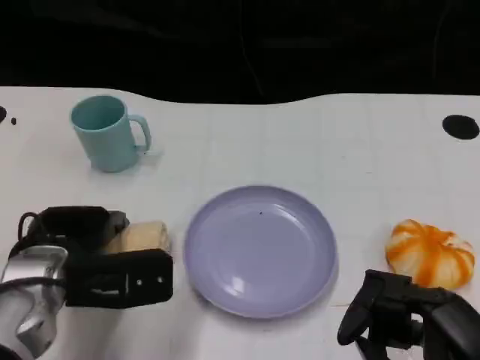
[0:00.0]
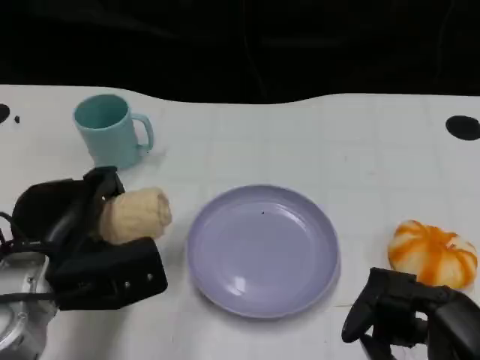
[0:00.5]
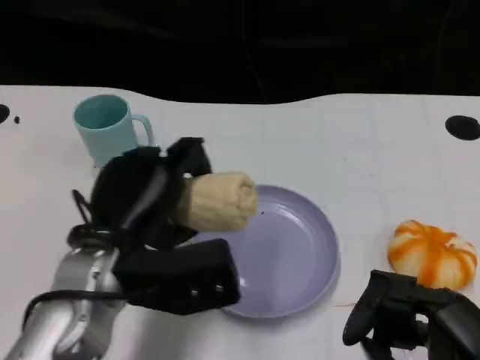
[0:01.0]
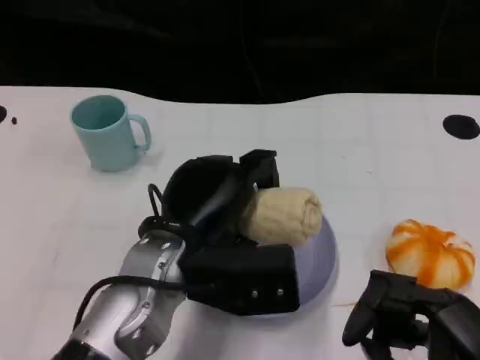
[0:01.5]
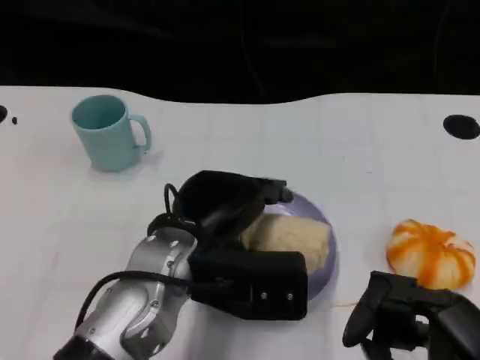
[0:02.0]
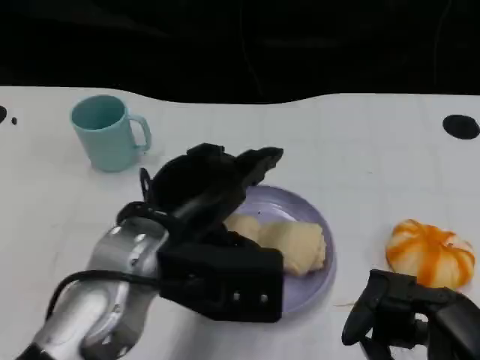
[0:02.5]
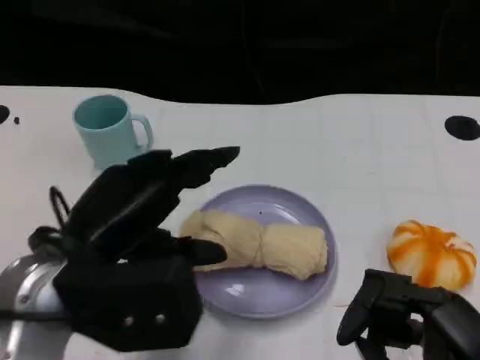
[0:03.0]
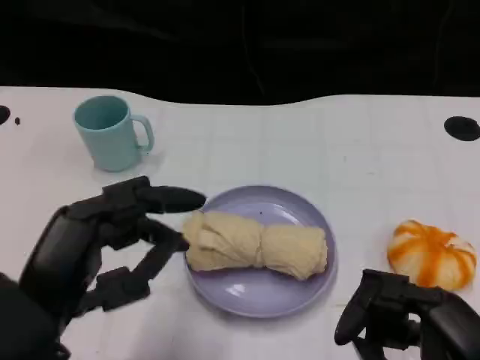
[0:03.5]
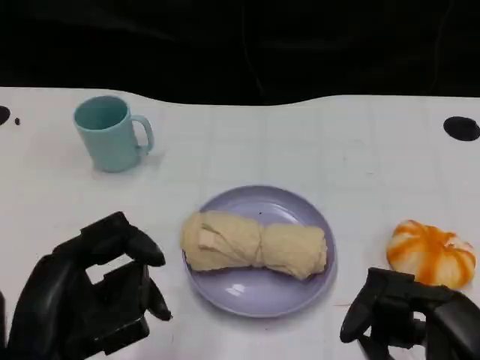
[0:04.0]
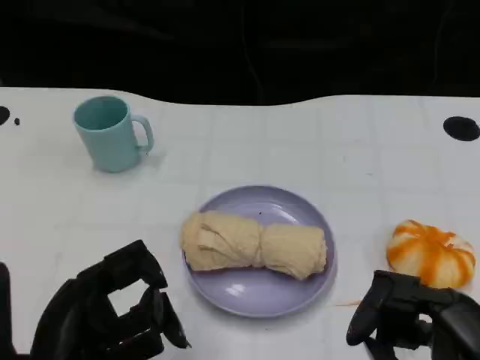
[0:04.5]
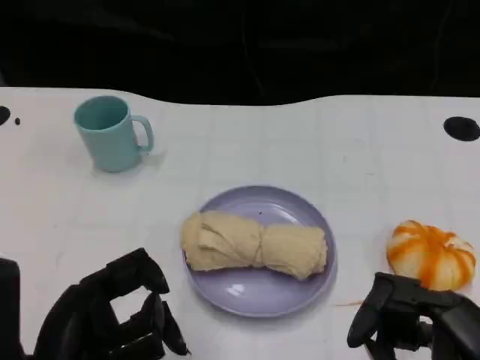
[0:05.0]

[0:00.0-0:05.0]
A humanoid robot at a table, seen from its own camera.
Task of the whole recording: Grasp the towel on the left side of the plate with the left hand and place it into the plate.
0.0 to 2.5 s: The left hand shifts some 10 cm to the right and upward.
2.5 to 5.0 s: The left hand travels backward and to the left by approximately 15 cm.

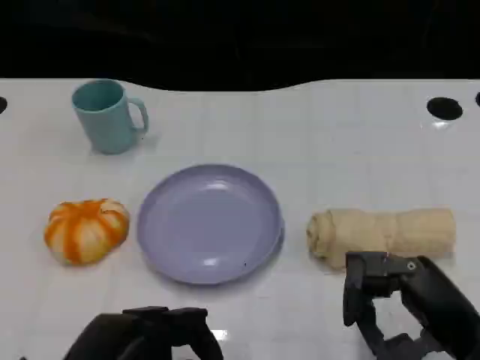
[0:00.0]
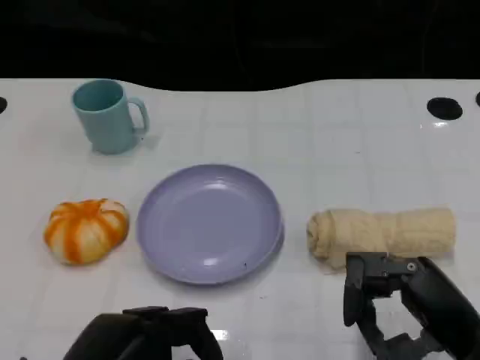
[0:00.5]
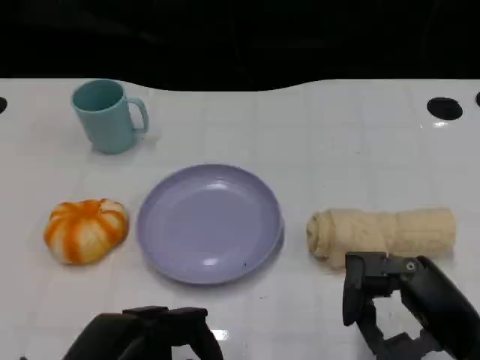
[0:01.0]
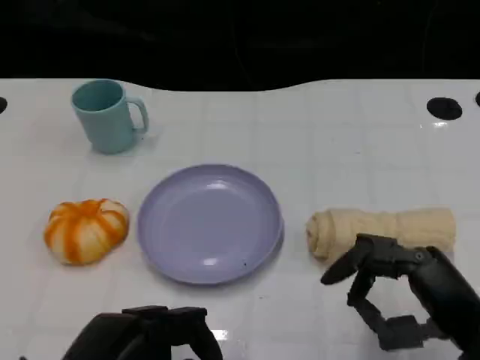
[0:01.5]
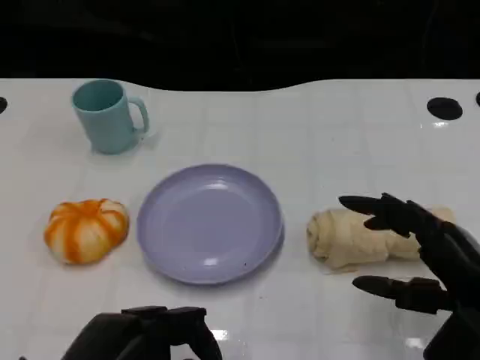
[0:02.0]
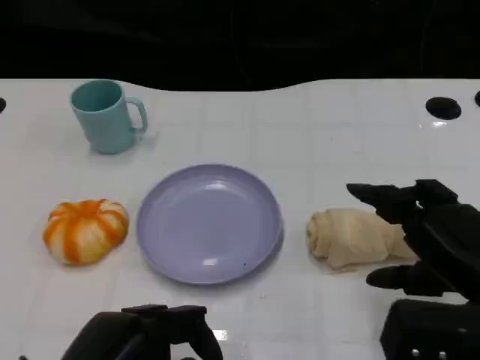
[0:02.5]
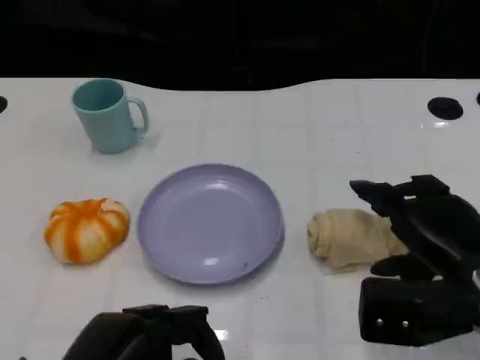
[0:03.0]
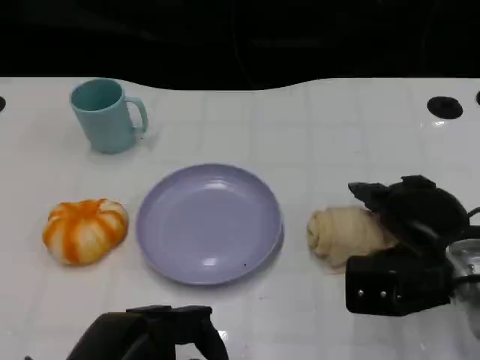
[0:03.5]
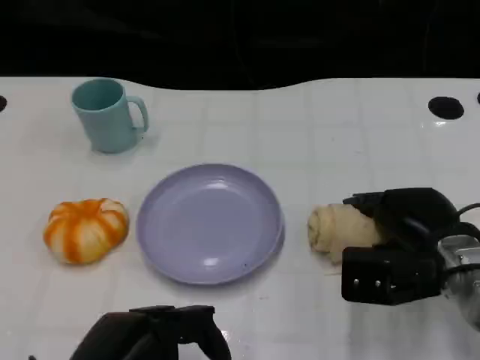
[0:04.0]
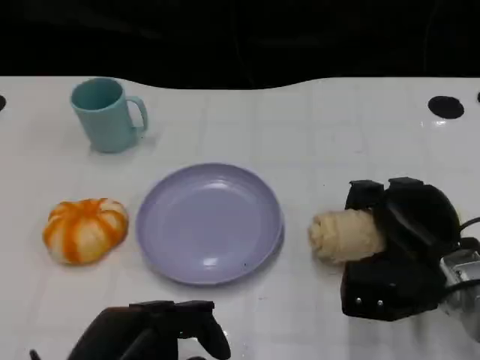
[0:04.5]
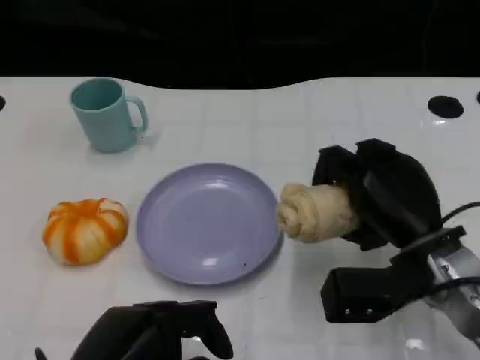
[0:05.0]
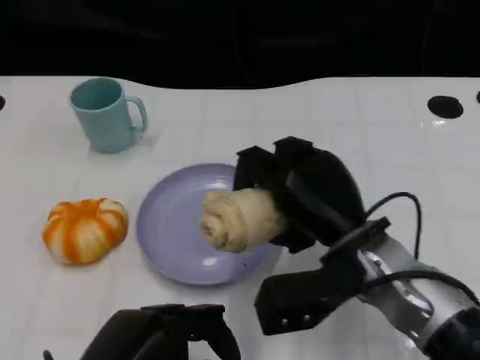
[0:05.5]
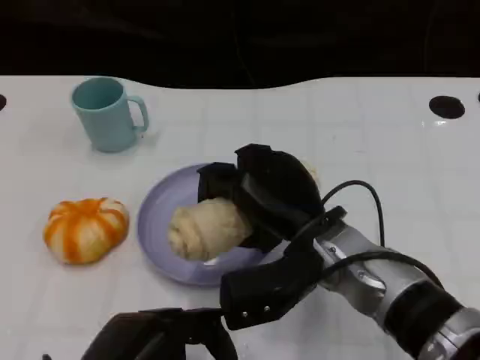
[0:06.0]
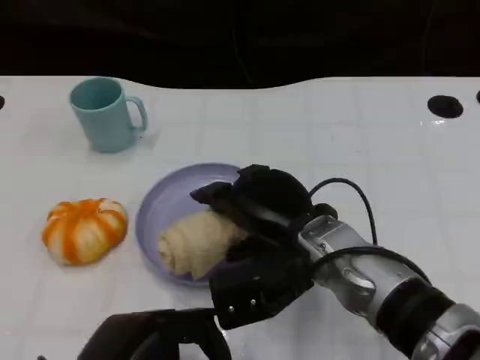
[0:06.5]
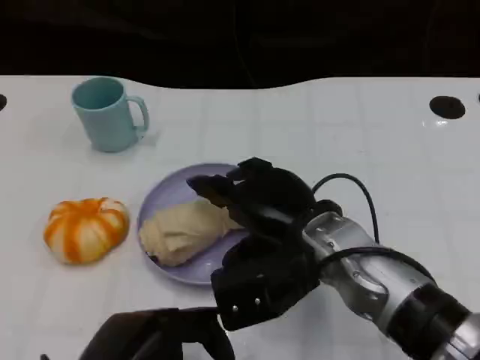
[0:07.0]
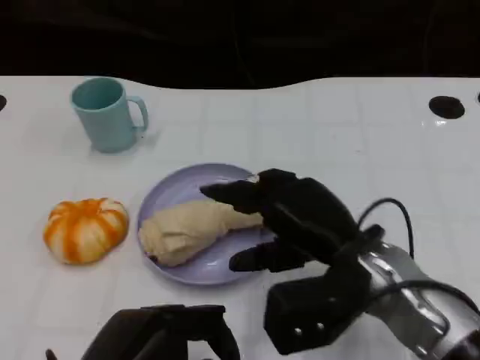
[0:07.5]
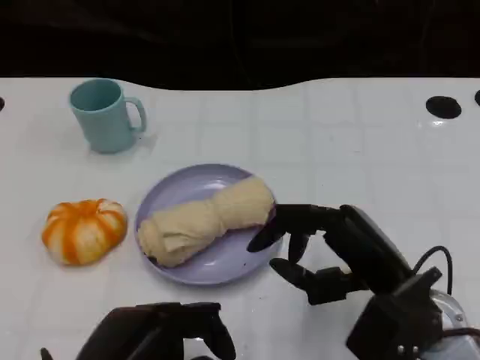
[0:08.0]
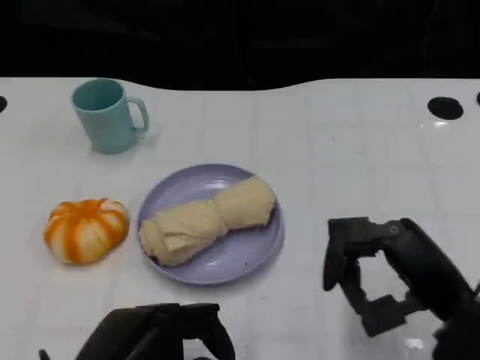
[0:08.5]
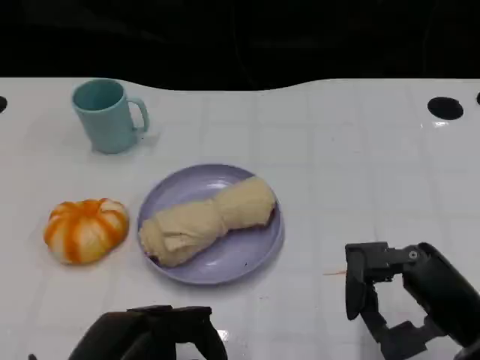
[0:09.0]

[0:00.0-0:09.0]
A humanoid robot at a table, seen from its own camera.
Task of the whole recording: Grasp the towel on the left side of the plate with the left hand and place it into the plate.
2.0 to 4.5 s: The right hand shifts about 10 cm forward and downward.
4.5 to 7.0 s: The right hand moves to the left and upward, some 15 cm.
7.0 to 9.0 s: The right hand is displaced to the right and backward by approximately 20 cm.

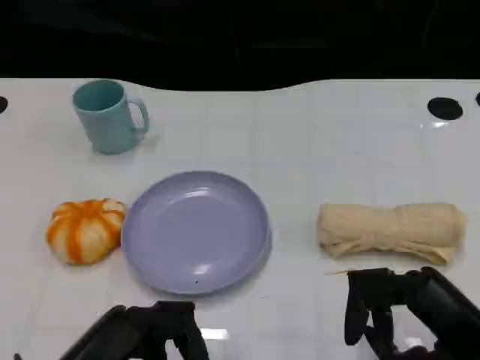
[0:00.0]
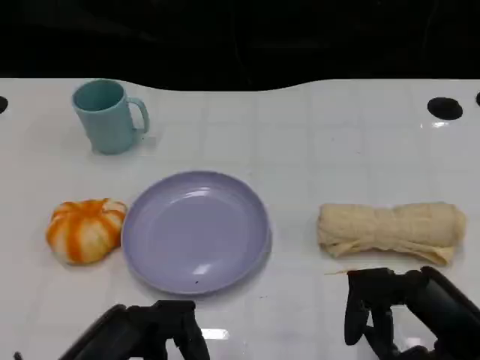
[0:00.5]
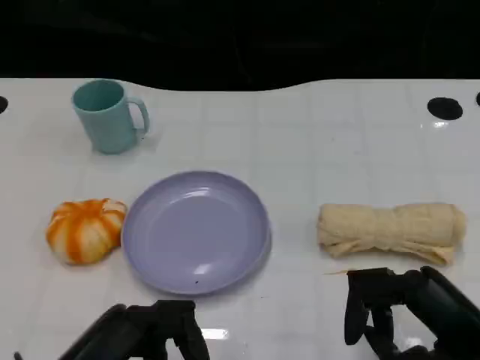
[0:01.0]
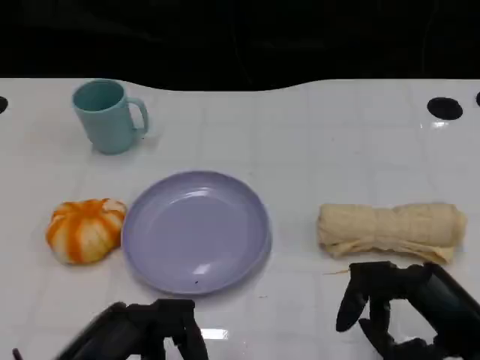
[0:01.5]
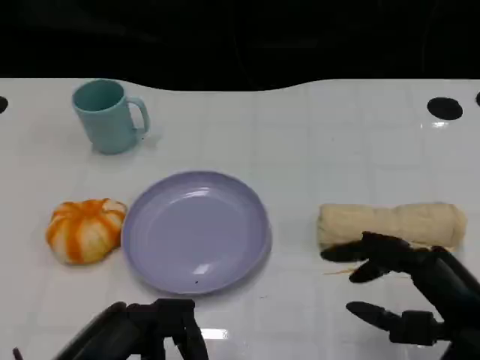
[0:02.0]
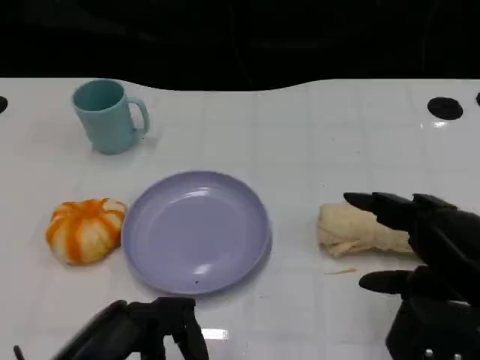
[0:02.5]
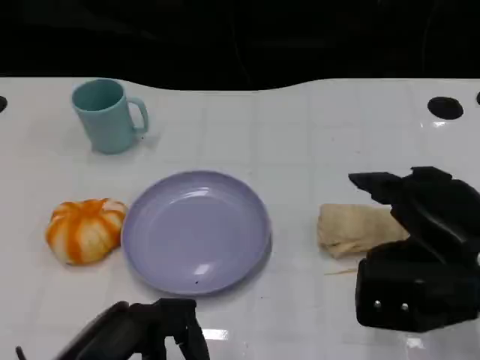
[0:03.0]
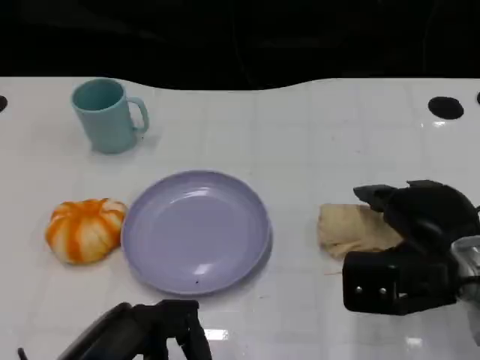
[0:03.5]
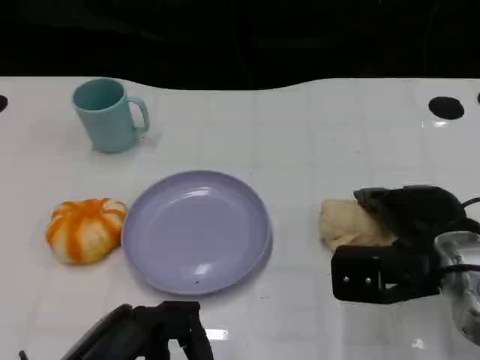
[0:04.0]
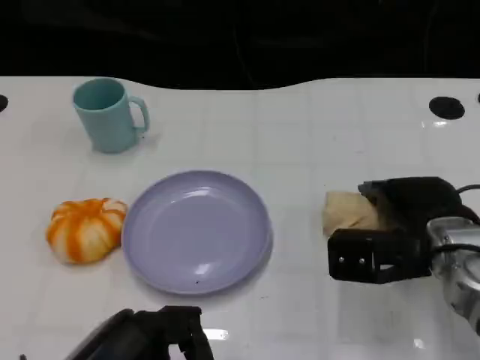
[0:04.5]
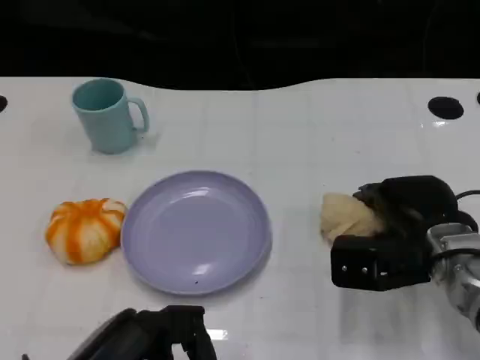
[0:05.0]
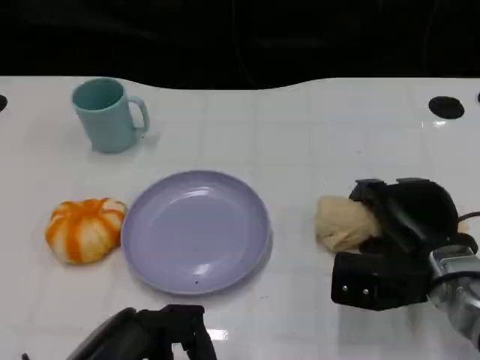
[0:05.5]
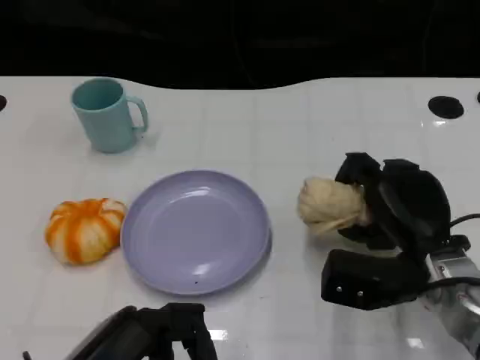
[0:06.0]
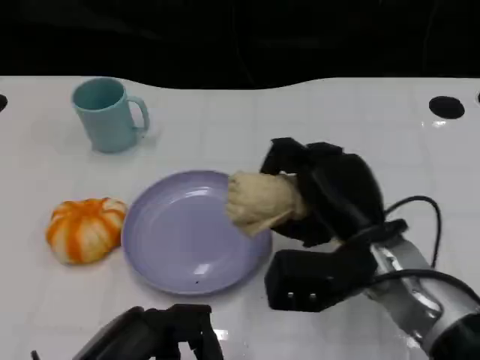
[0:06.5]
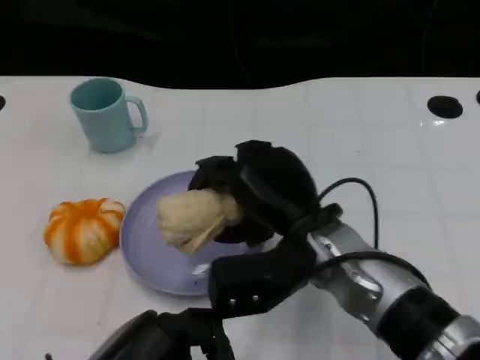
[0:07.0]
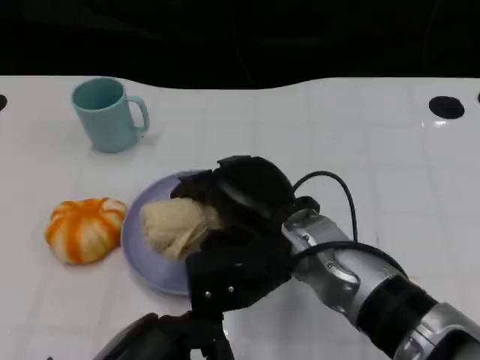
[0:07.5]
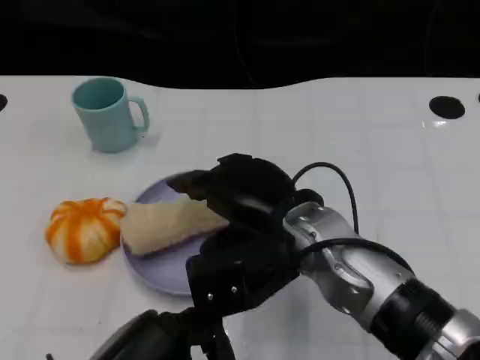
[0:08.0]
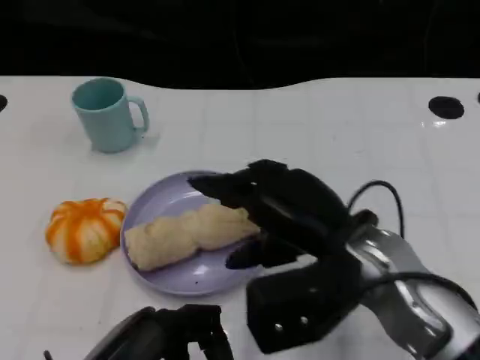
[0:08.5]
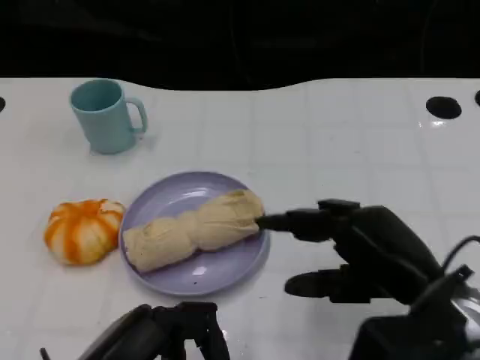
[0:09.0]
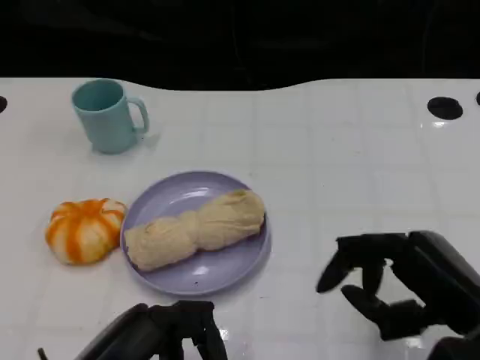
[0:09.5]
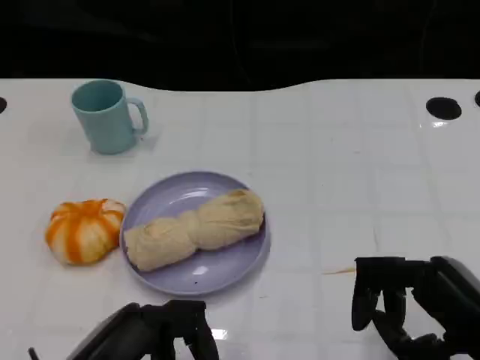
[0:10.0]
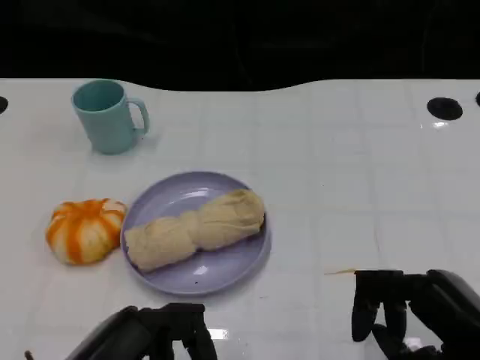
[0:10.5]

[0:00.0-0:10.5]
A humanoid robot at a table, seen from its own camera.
Task of the whole recording: Grasp the towel on the left side of the plate with the left hand and place it into the plate.
0.0 to 2.0 s: The hands make only small movements.
2.0 to 4.0 s: The right hand is displaced forward by about 10 cm.
4.0 to 6.5 s: The right hand is displaced to the left by some 10 cm.
6.5 to 8.5 s: The right hand shifts by about 5 cm.
8.5 to 10.5 s: The right hand moves to the right and backward, approximately 15 cm.

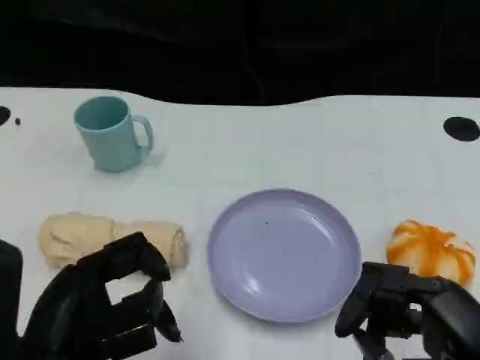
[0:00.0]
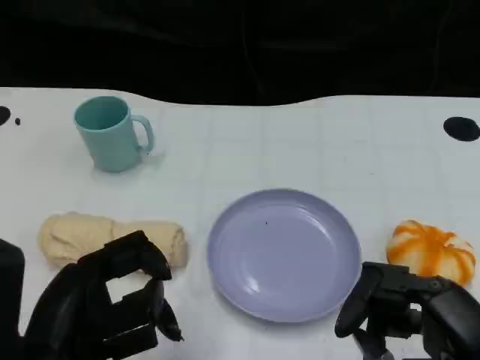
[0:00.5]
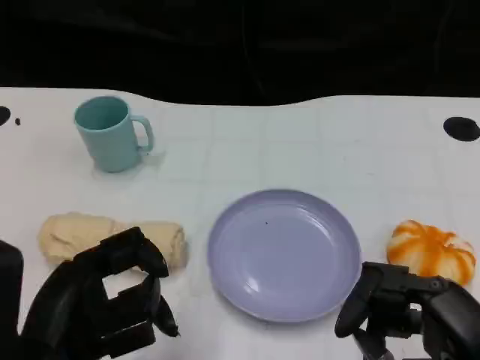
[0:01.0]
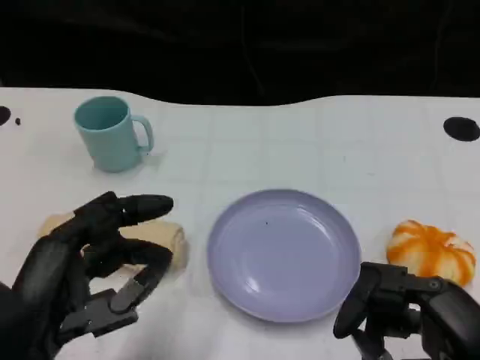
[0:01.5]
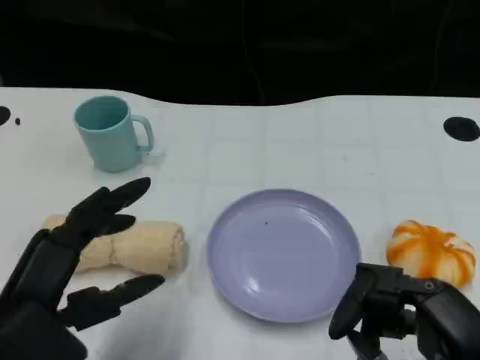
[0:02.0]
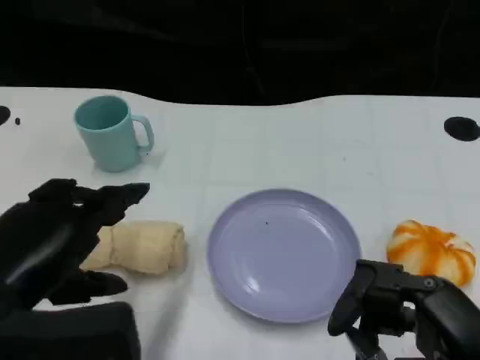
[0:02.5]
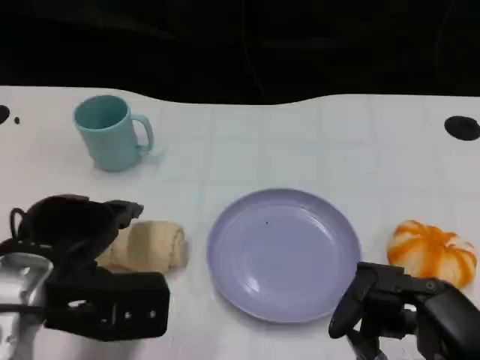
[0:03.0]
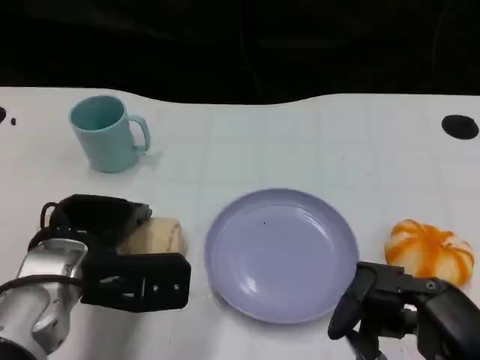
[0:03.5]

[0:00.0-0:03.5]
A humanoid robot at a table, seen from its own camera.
Task of the whole recording: Grasp the towel on the left side of the plate with the left hand and place it into the plate.
2.0 to 3.5 s: The left hand heads forward and downward, covering some 15 cm.
